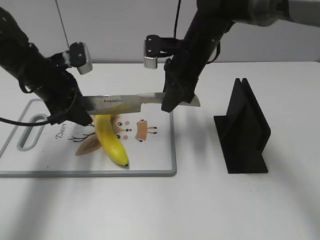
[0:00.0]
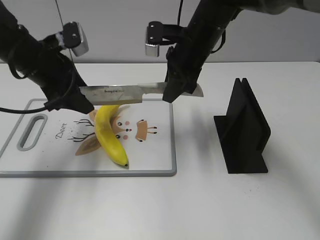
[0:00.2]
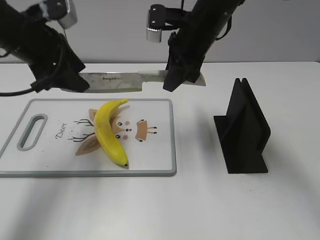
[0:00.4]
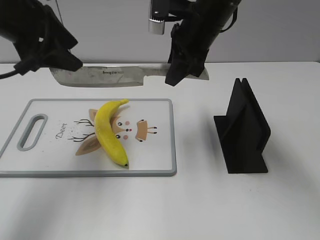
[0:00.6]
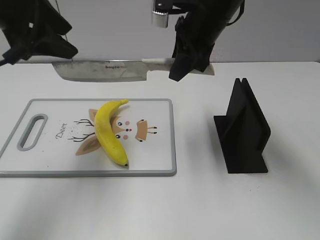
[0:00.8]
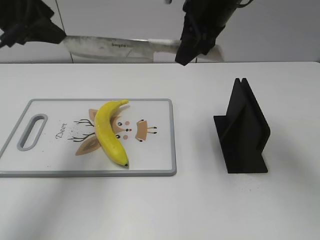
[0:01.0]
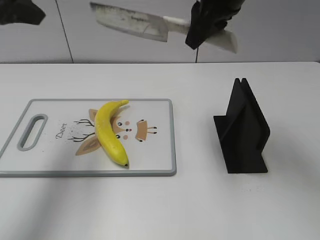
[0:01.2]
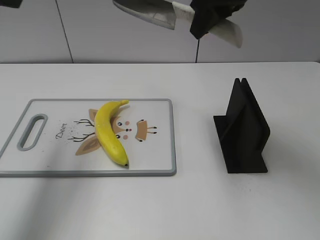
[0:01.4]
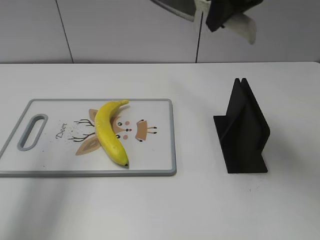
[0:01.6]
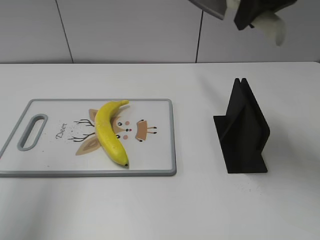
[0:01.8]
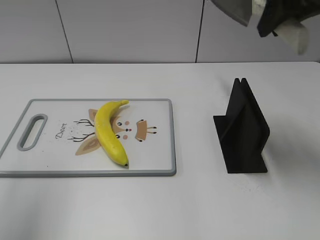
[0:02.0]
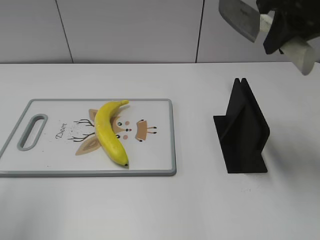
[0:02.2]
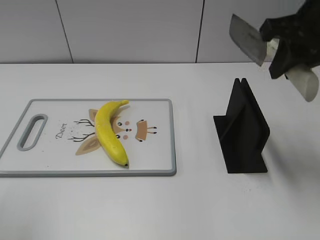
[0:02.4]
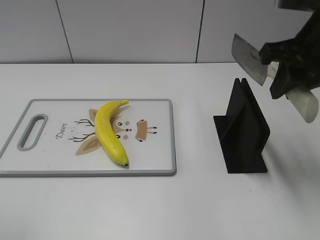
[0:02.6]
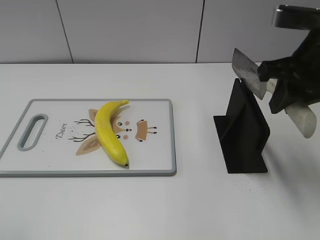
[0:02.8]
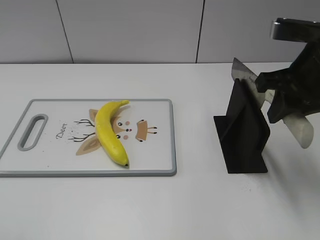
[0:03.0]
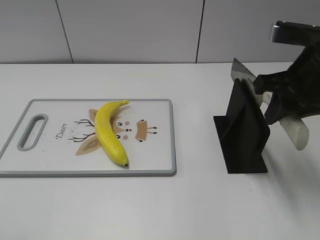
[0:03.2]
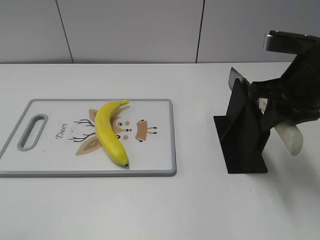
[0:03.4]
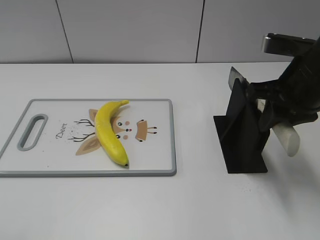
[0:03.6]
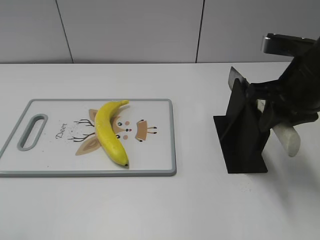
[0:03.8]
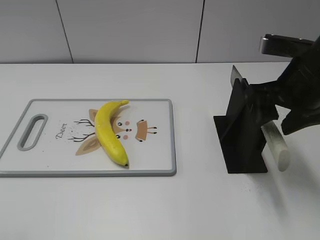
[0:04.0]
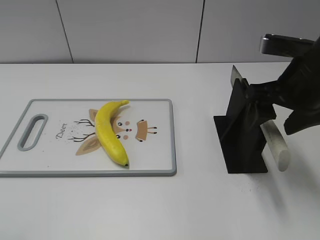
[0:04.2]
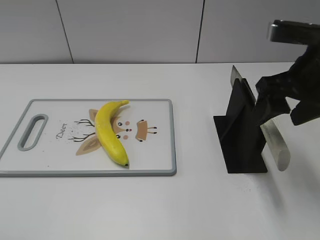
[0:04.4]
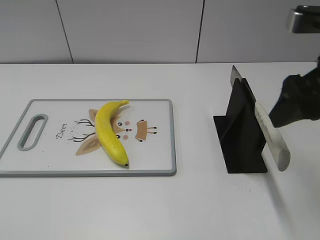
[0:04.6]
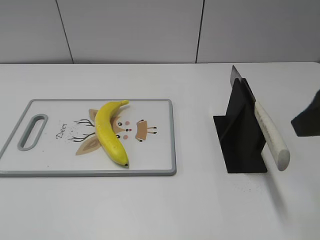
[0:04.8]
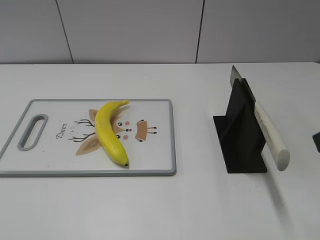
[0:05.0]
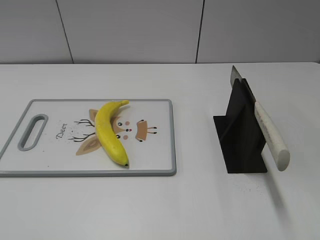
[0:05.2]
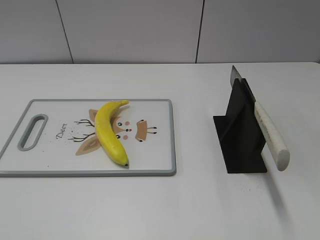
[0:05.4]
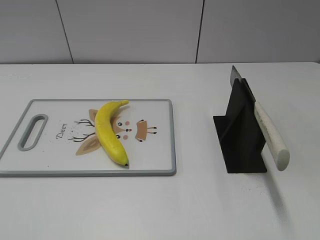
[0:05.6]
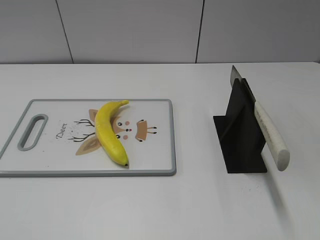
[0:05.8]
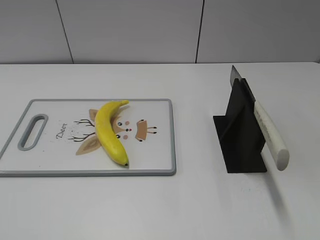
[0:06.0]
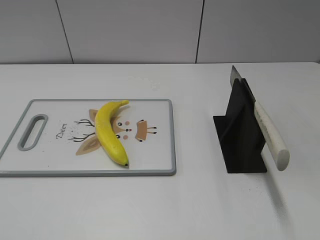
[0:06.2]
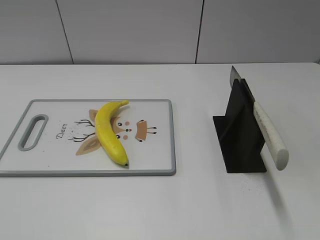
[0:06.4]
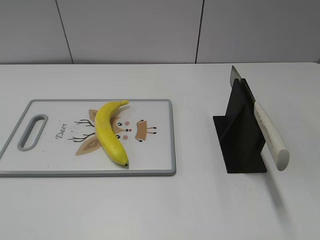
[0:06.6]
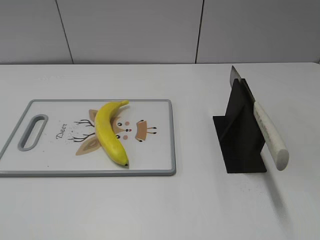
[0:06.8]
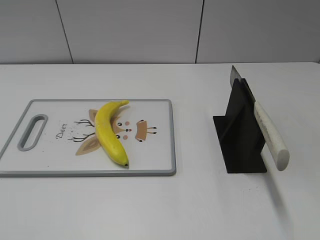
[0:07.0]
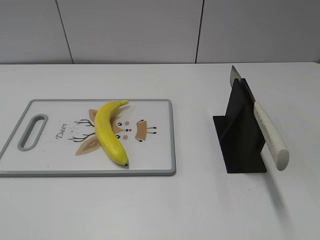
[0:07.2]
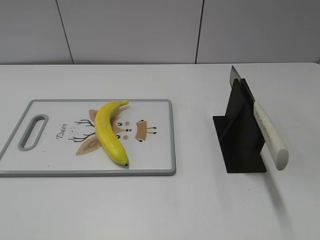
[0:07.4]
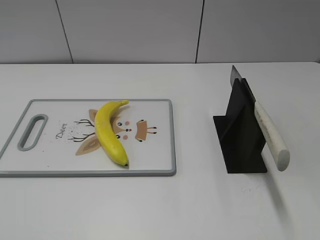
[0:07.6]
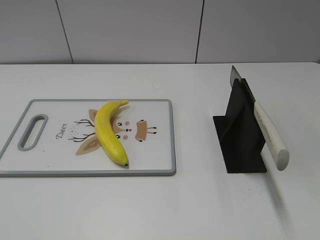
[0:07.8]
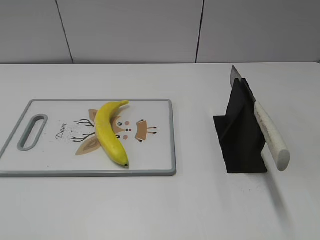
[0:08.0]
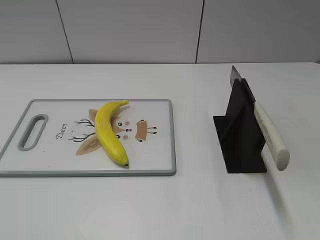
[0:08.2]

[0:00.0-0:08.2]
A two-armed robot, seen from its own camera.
Task of the whole recording: cut plastic banana.
Step, 0:00.0 to 0:02.6: Cut the banana with your right hand.
Step, 0:03.0 to 0:08.0: Place the knife on the storage rack with your right hand.
0:00.0 to 0:01.6: The right gripper moves upward, some 20 cm, while the left gripper goes approximately 25 cm upward and backward, and opens.
0:01.6 to 0:03.2: The right gripper is displaced downward, backward and to the right by some 15 cm. The left gripper shifts approximately 20 cm backward and downward.
0:03.2 to 0:05.0: The right gripper heads backward, covering roughly 15 cm, and opens up.
